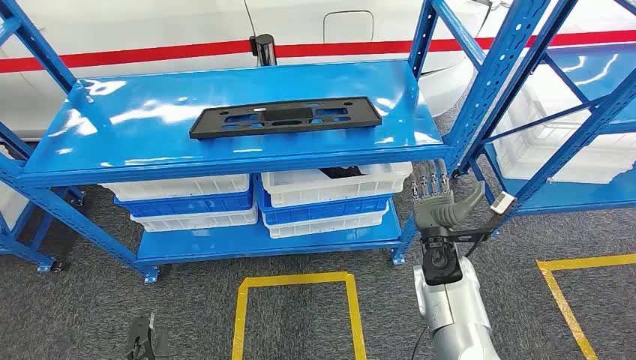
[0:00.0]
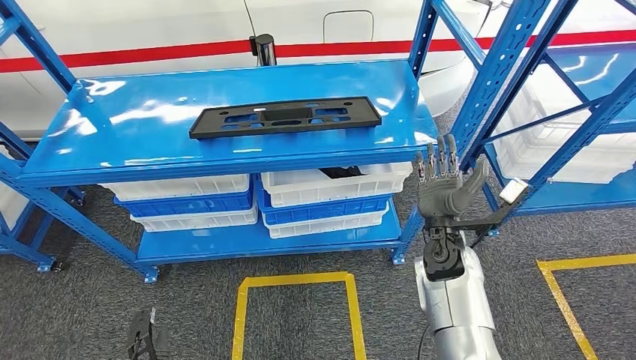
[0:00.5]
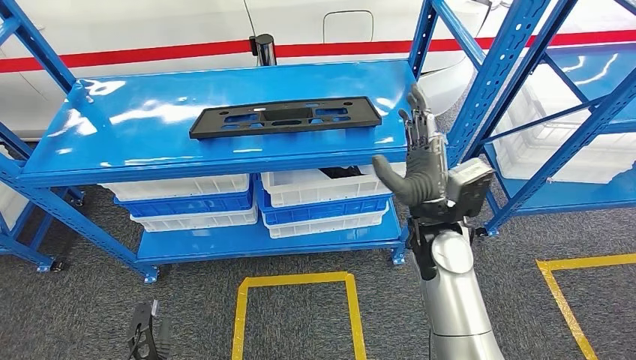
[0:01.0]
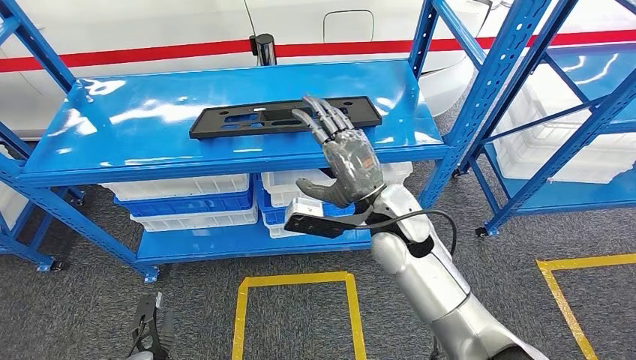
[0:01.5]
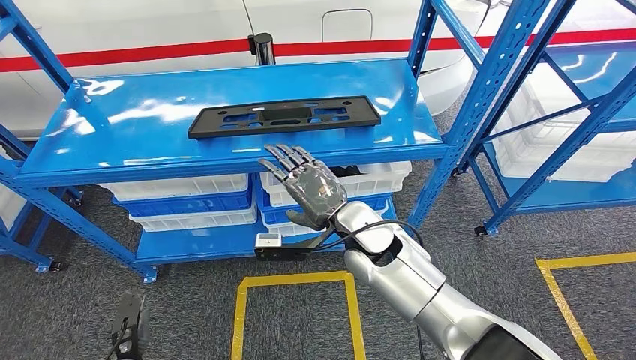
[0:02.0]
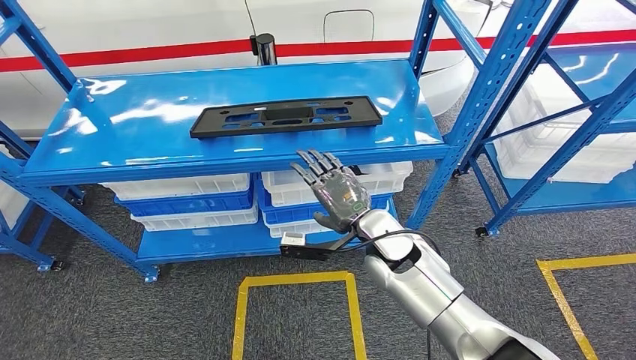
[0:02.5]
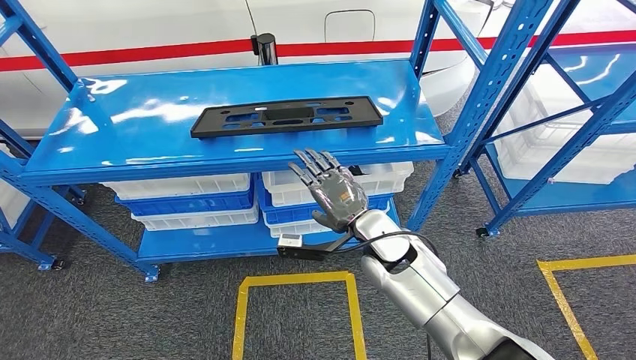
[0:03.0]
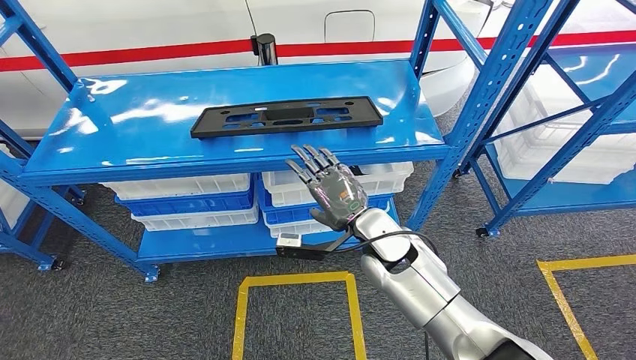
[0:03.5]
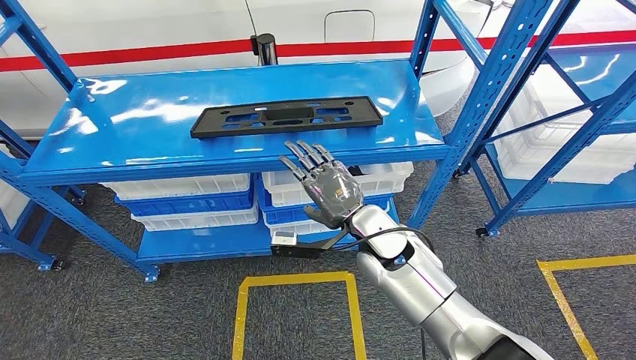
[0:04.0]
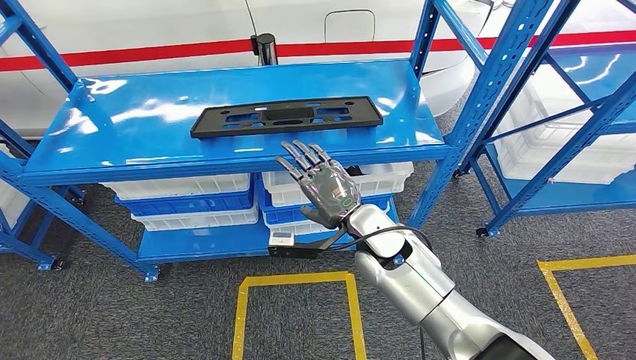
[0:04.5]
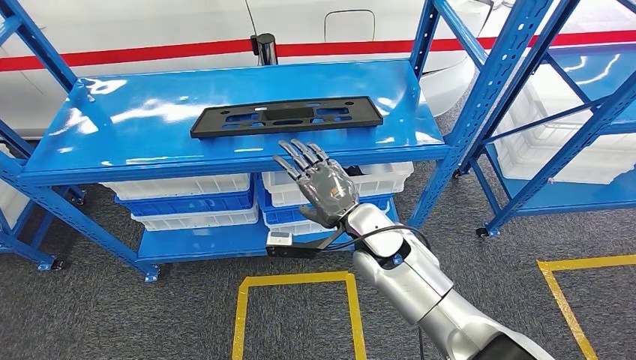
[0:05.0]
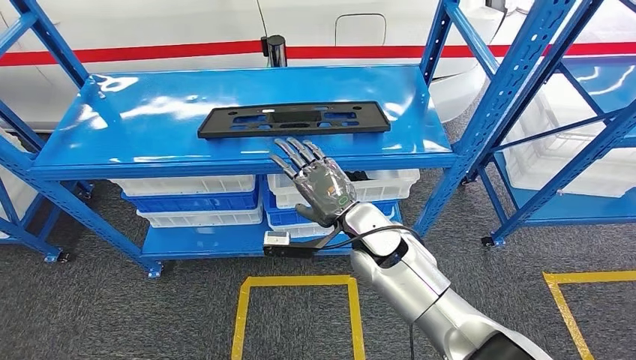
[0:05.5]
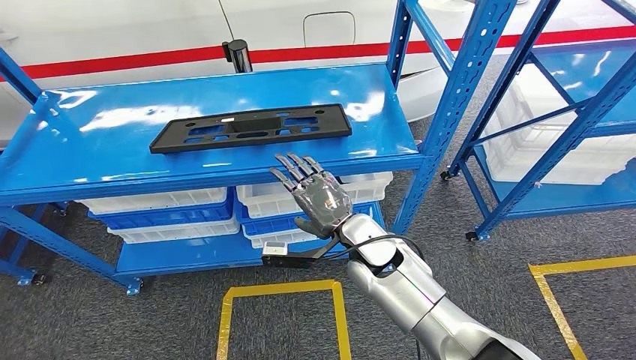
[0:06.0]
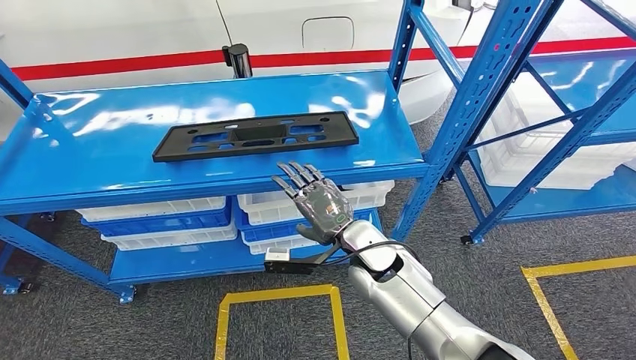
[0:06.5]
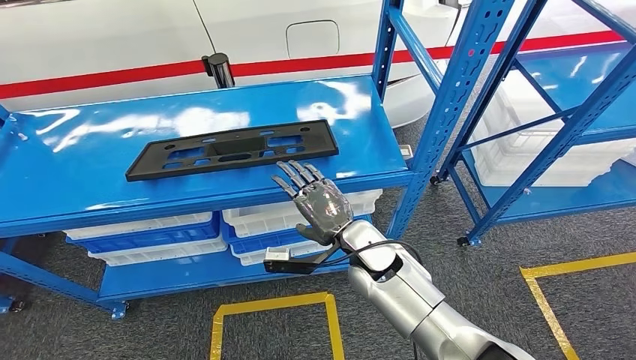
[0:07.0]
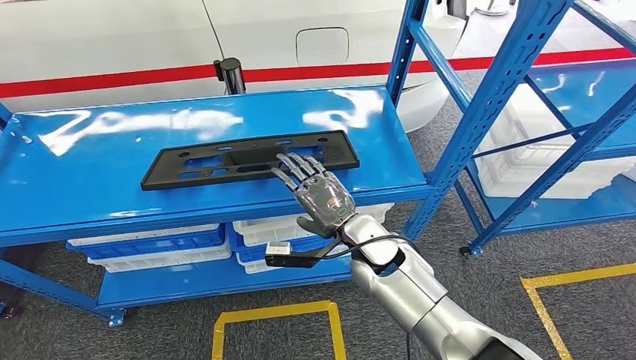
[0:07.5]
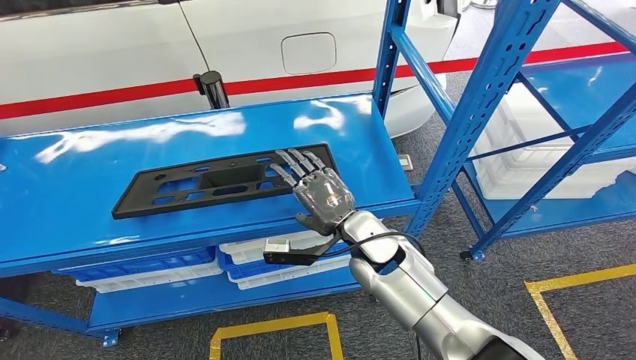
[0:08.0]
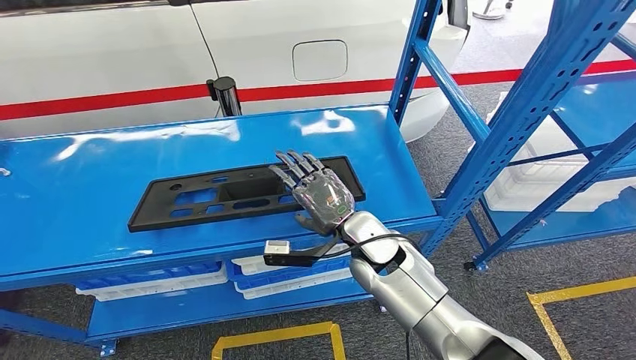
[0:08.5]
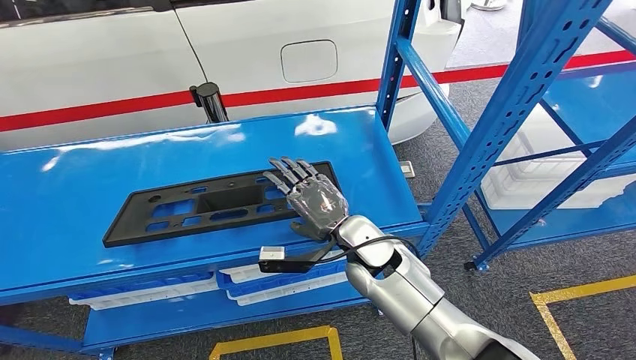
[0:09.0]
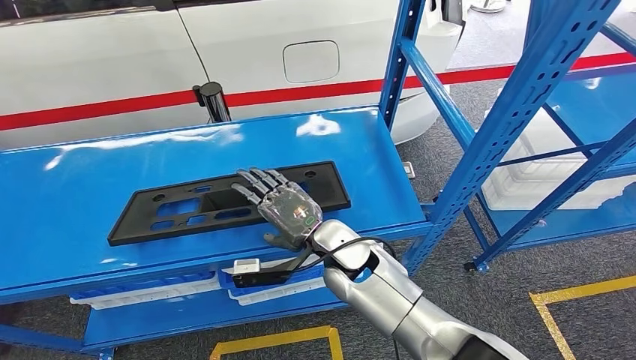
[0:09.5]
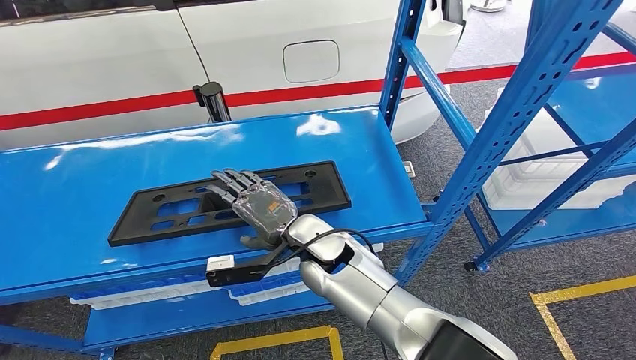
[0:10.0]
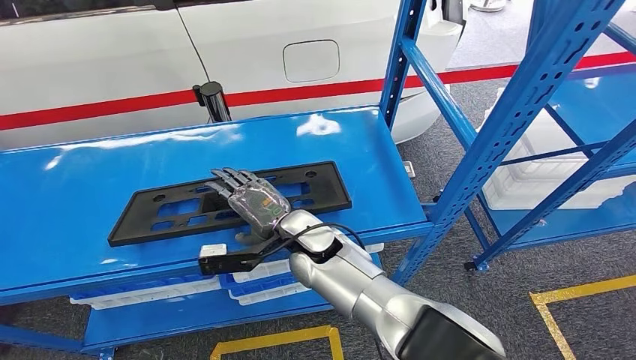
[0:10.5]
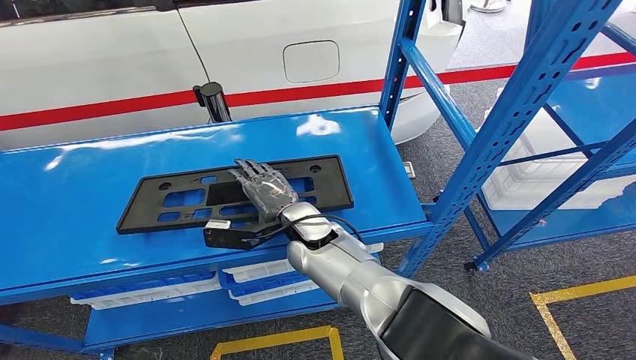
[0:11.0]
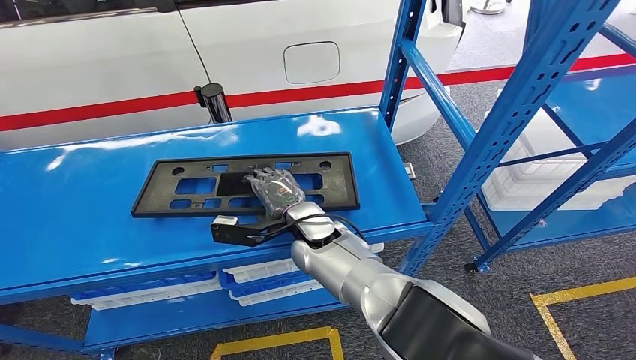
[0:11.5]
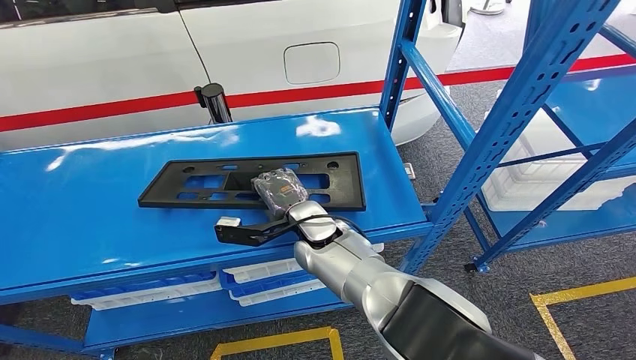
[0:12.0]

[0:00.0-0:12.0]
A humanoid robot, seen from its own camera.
0:02.0 to 0:04.0: The left hand travels backward by about 15 cm.
0:10.0 to 0:12.0: The right hand shifts by some 5 cm.

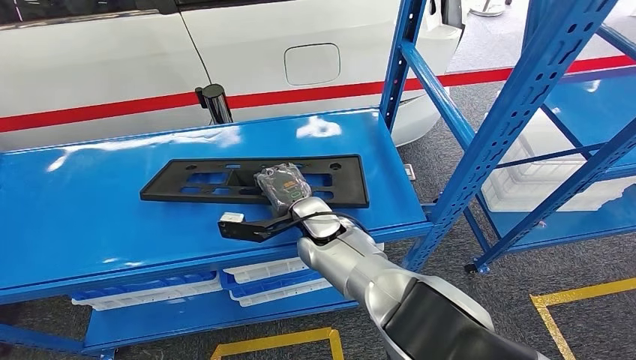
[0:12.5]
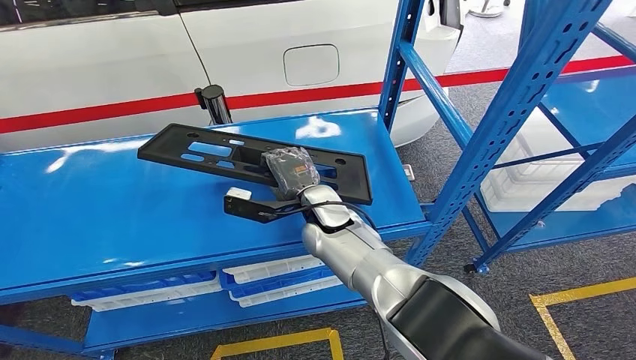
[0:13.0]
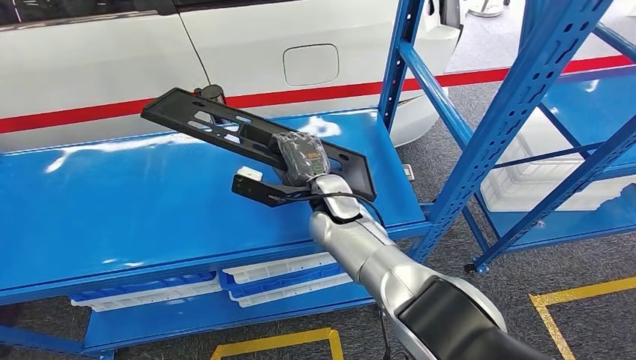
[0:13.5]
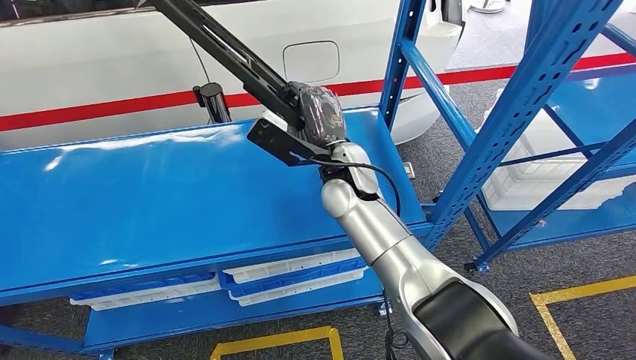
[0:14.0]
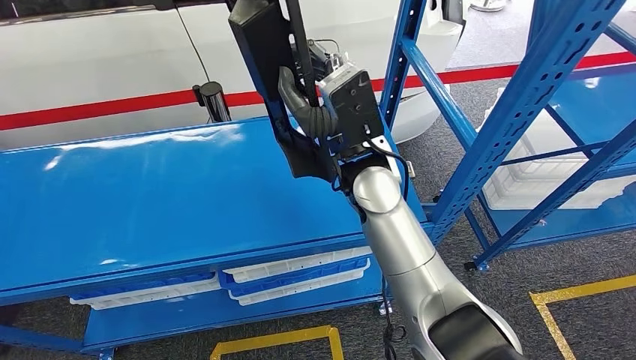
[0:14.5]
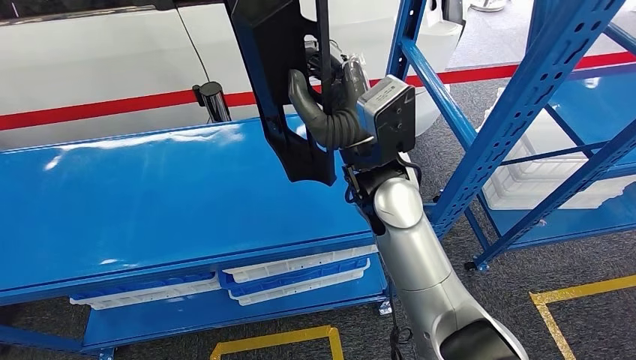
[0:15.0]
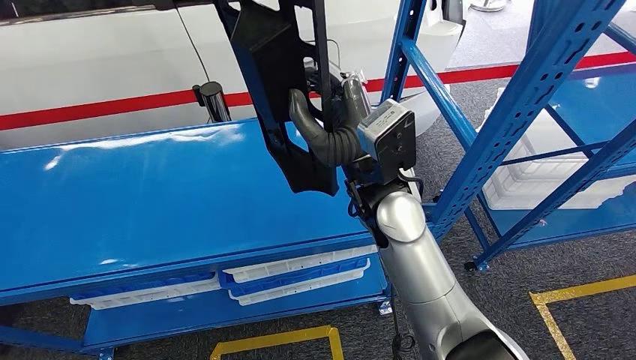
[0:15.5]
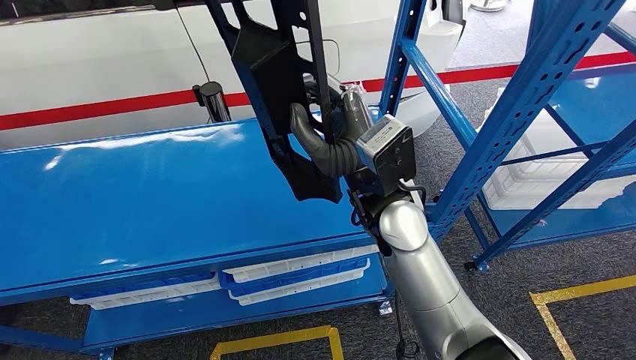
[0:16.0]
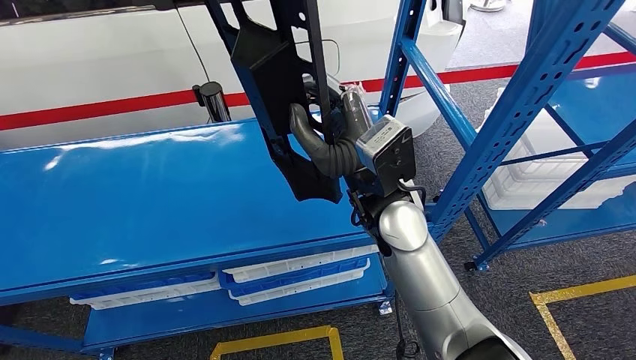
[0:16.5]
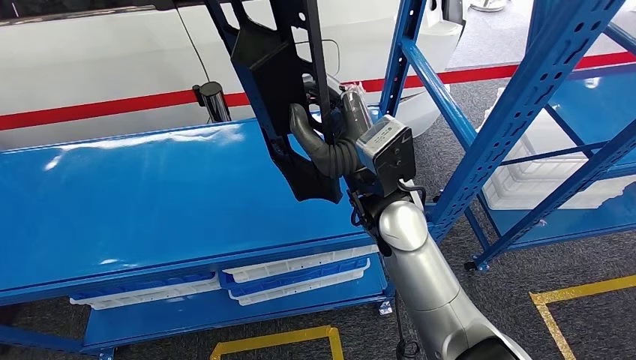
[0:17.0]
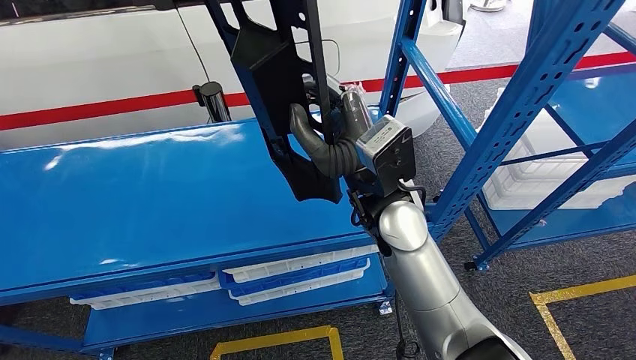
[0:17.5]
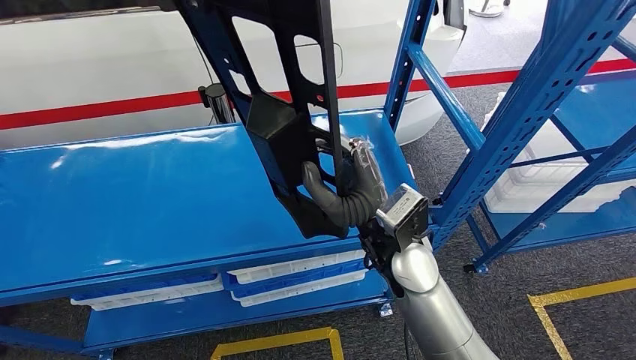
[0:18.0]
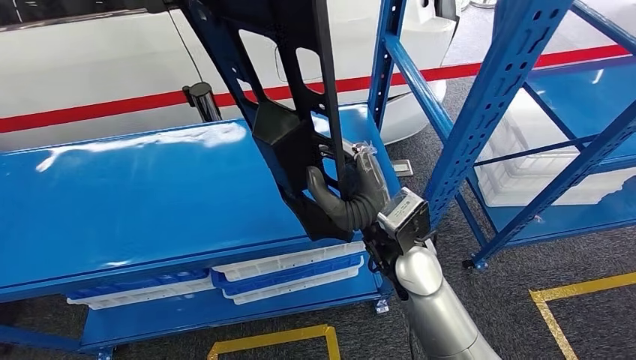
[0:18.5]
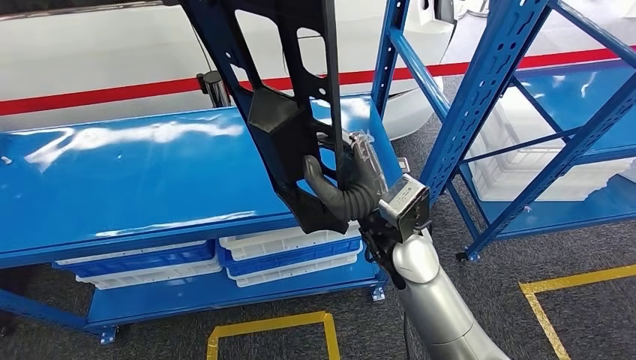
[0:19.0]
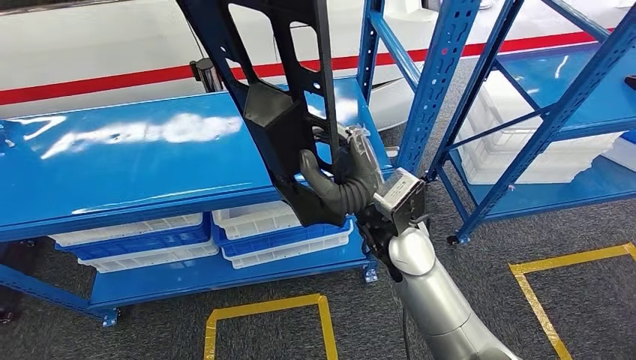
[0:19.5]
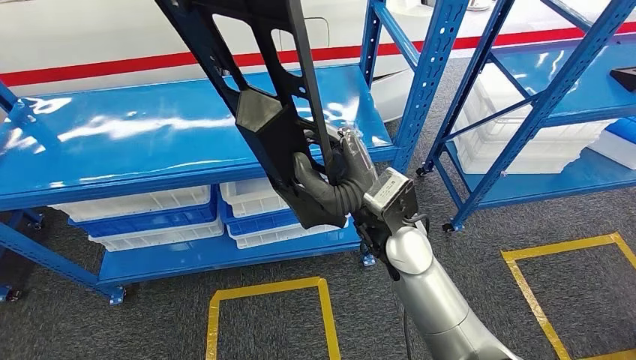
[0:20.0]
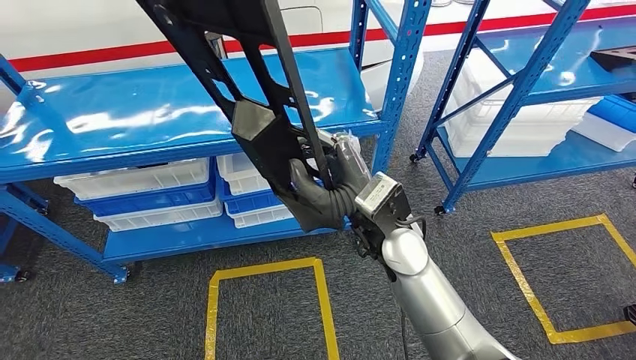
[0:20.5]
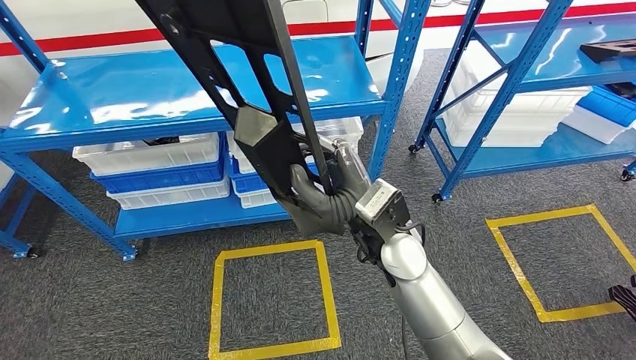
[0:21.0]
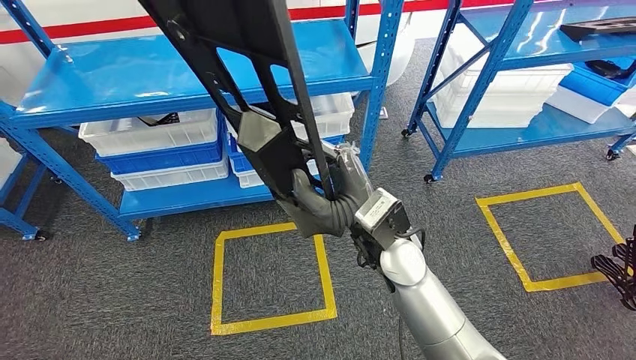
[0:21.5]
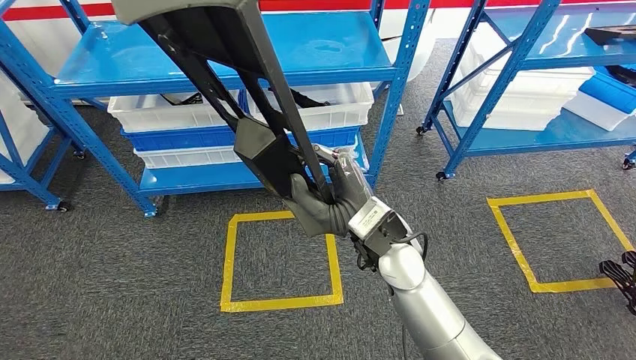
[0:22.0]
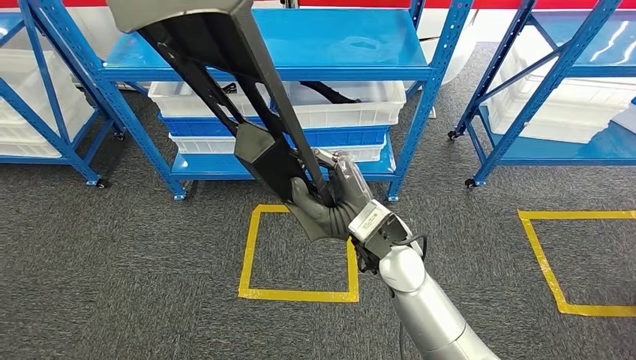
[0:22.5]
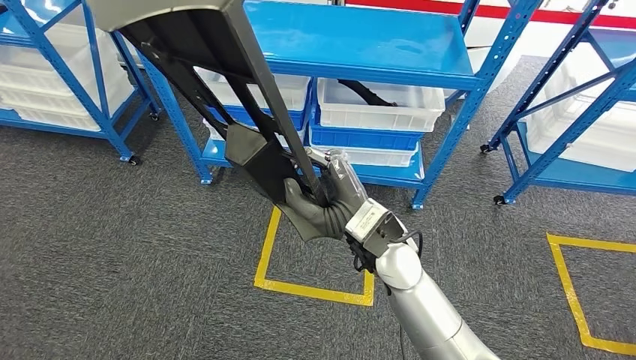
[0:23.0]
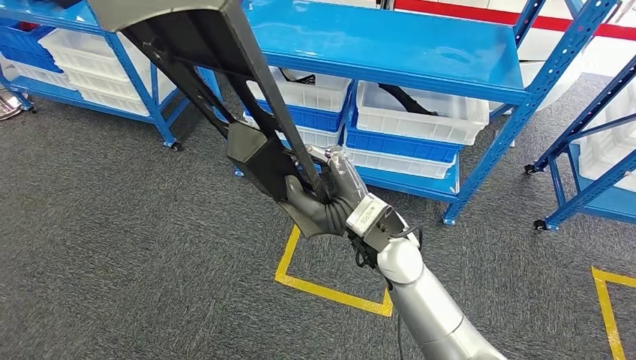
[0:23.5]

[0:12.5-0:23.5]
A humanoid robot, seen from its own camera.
Step, 0:12.5 to 0:16.5: Pick up the large parts from the shelf.
0:14.5 to 0:16.0: The right hand moves about 5 cm.
